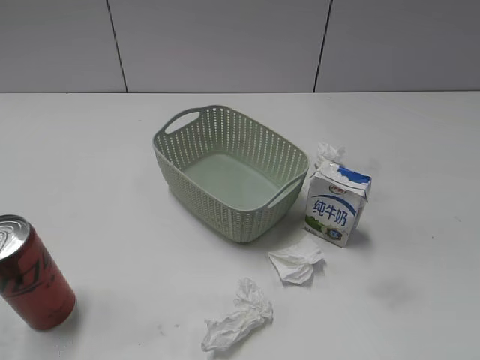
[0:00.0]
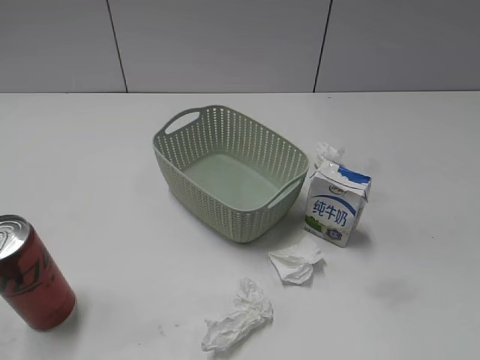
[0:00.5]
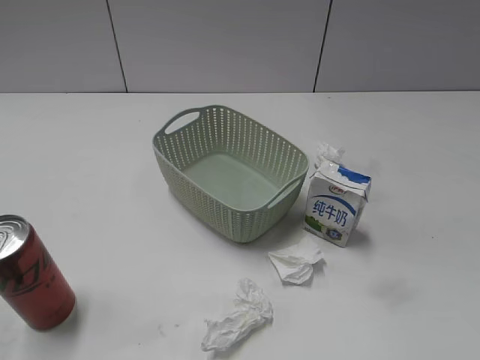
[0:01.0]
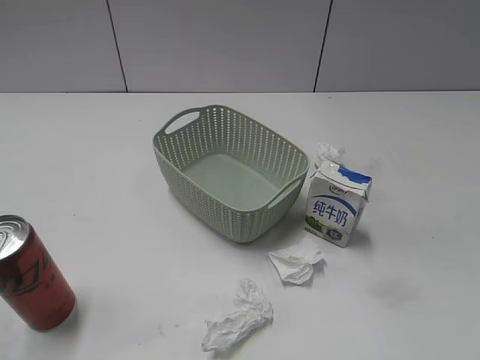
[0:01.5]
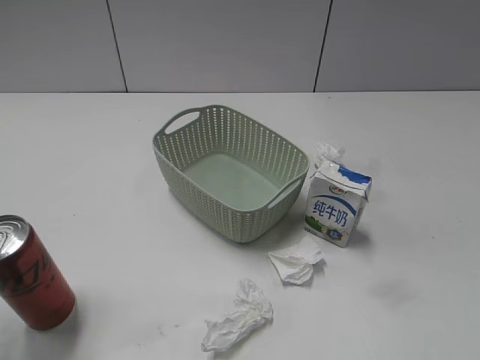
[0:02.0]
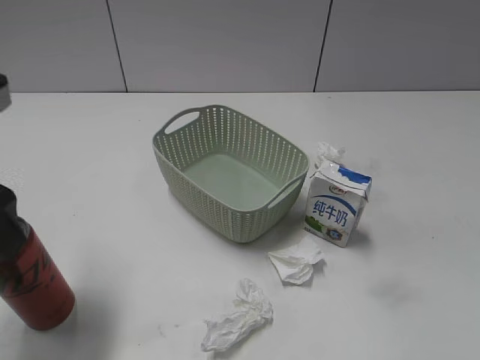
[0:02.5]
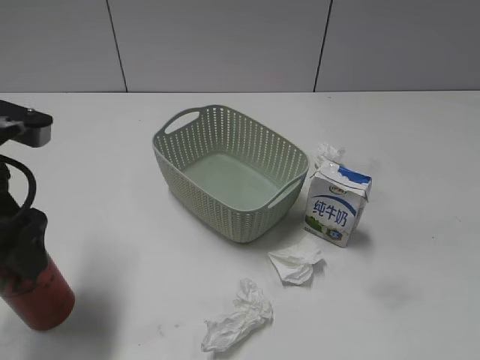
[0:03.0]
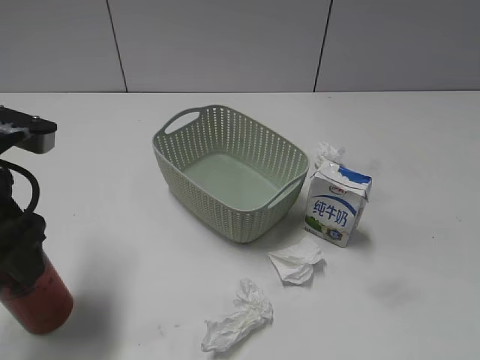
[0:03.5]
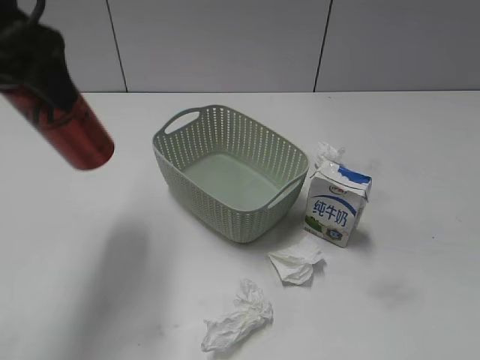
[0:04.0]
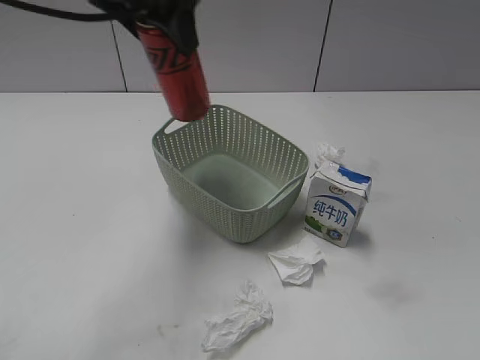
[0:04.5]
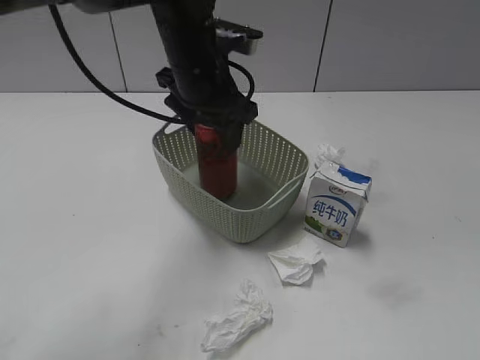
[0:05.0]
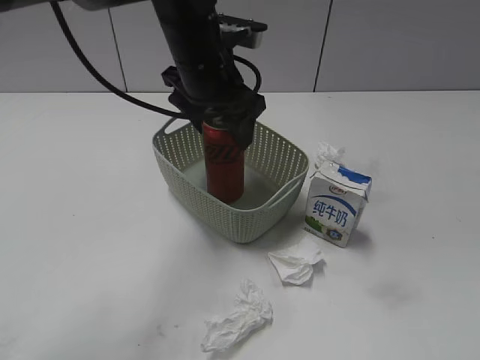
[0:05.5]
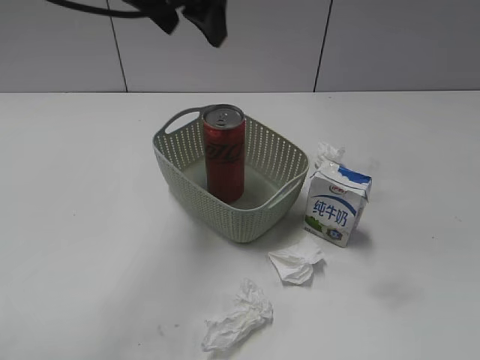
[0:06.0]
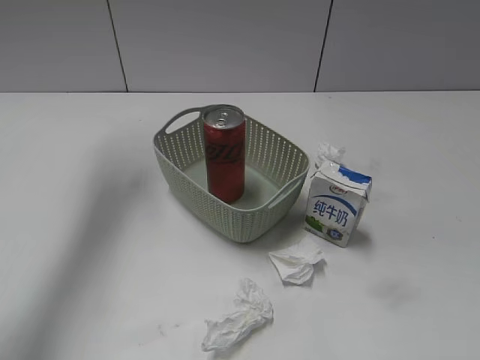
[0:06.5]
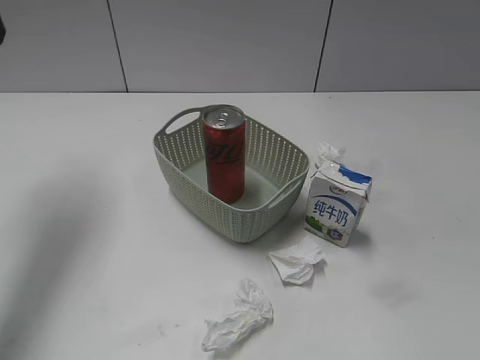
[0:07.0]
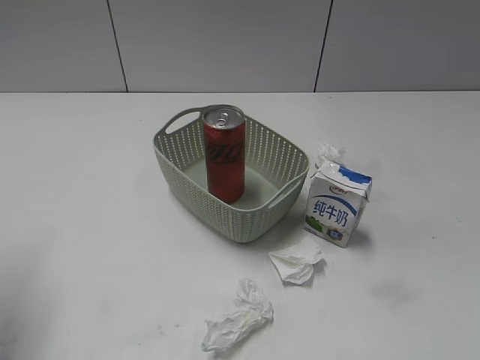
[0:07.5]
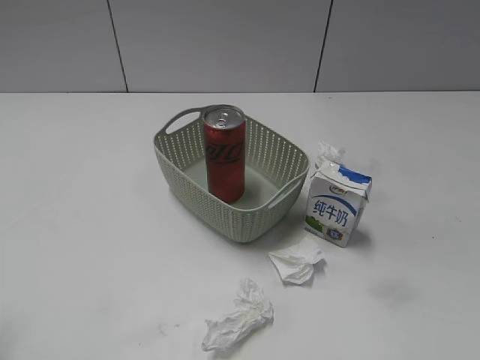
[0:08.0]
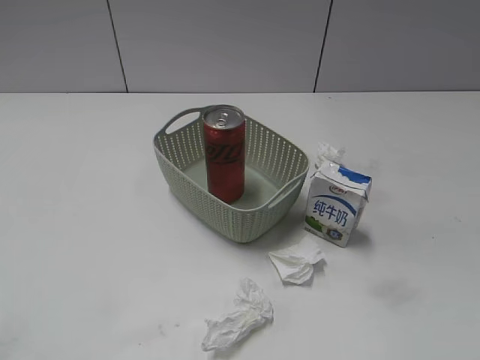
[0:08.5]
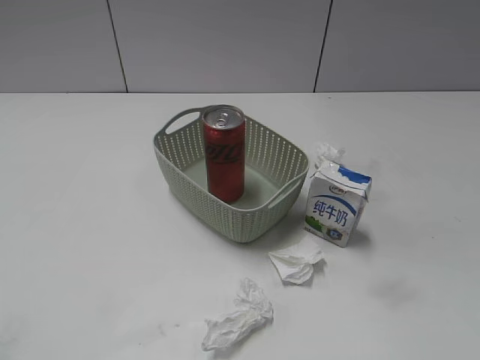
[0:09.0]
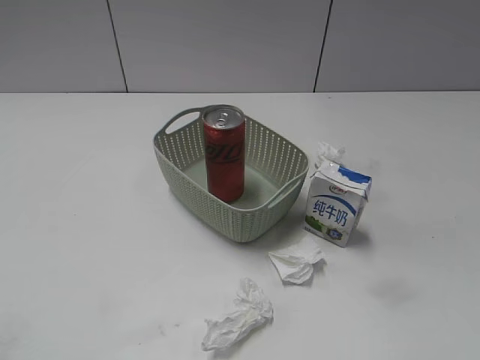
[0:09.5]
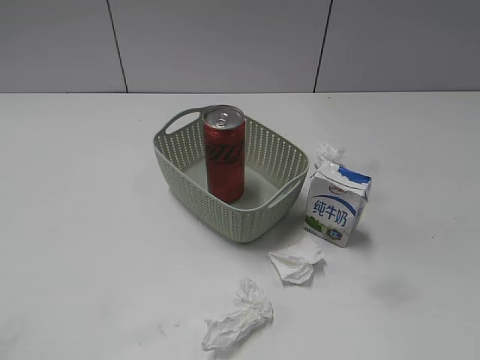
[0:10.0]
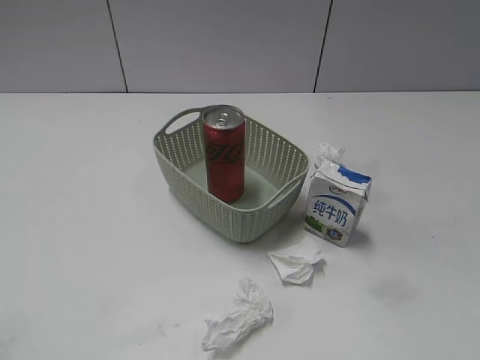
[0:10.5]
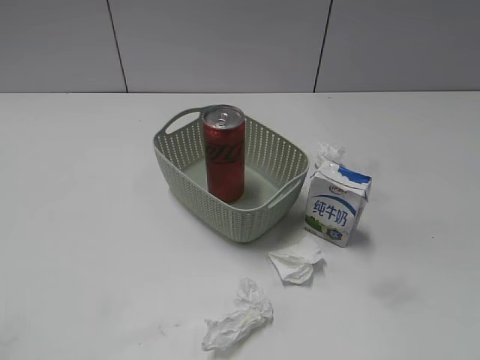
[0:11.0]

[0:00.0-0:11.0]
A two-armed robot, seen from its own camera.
Step, 0:02.5 to 0:03.0: Grasp the cola can with left gripper.
Step, 0:03.5 to 0:05.5: Place the cola can in the basket with left gripper.
0:02.0 to 0:03.5: The left gripper travels downward, forward and to the right by roughly 15 cm, and closes.
0:03.5 to 0:05.5: The left gripper heads to the right and forward, covering roughly 25 cm, and opens up.
0:05.5 to 0:07.5: The left gripper moves to the left and backward, about 30 cm, and closes.
0:07.5 to 0:09.0: The left gripper heads backward, covering about 20 cm.

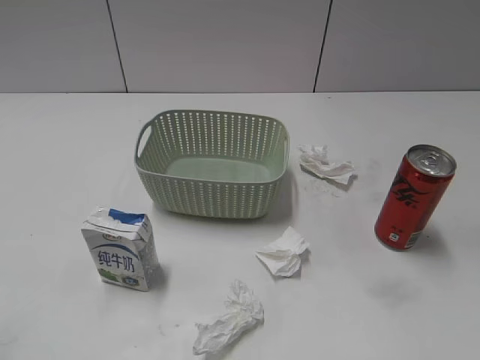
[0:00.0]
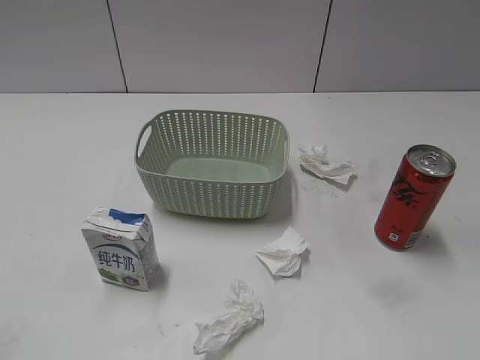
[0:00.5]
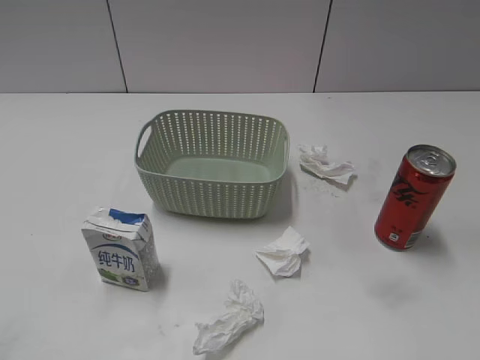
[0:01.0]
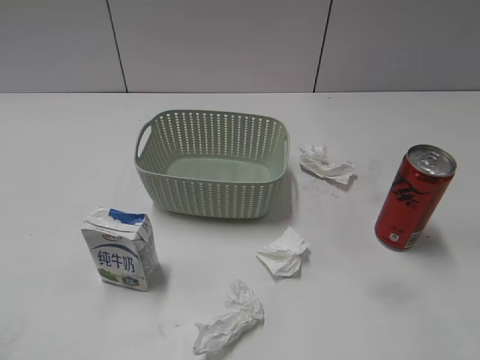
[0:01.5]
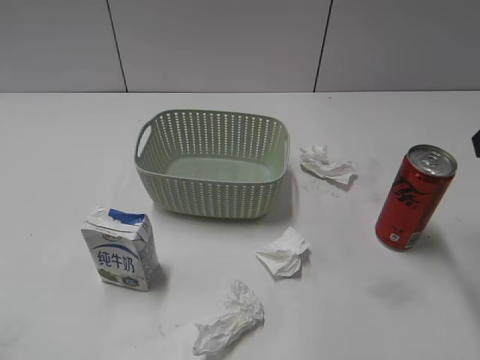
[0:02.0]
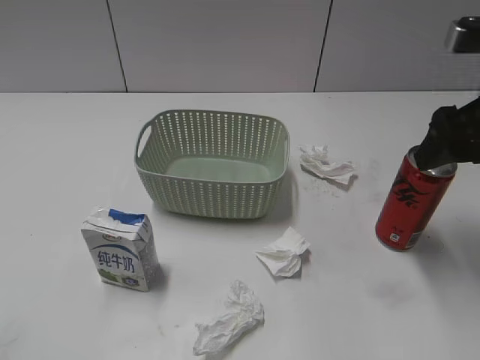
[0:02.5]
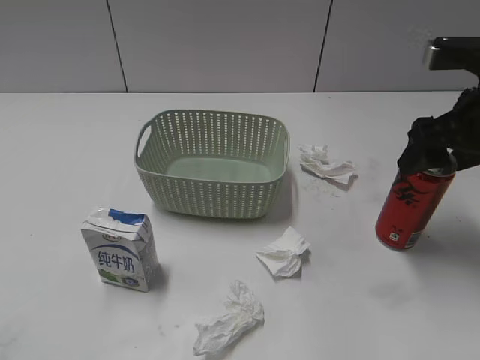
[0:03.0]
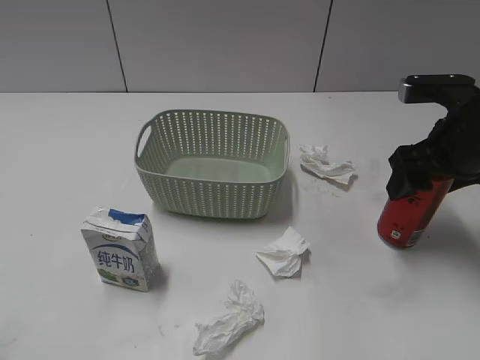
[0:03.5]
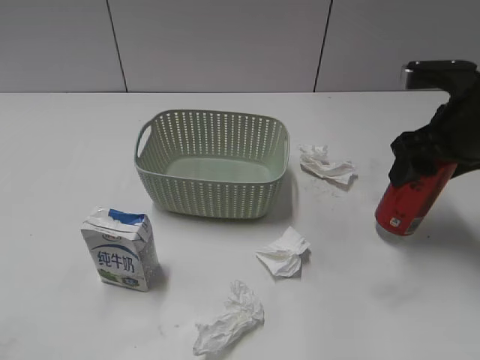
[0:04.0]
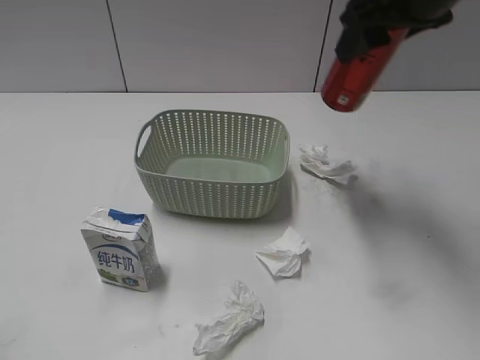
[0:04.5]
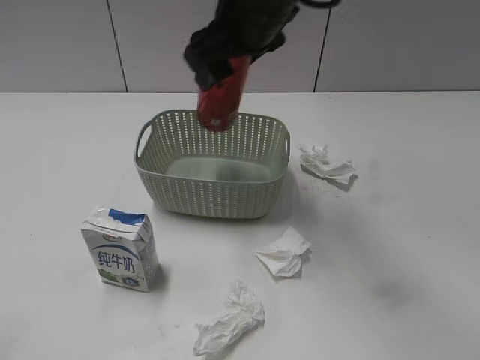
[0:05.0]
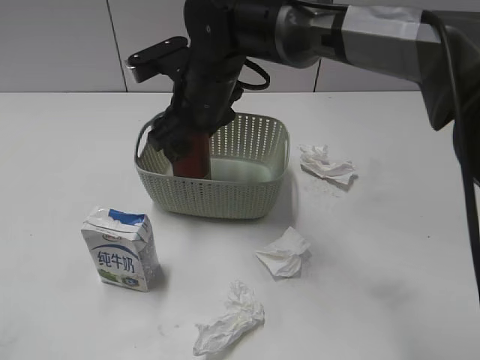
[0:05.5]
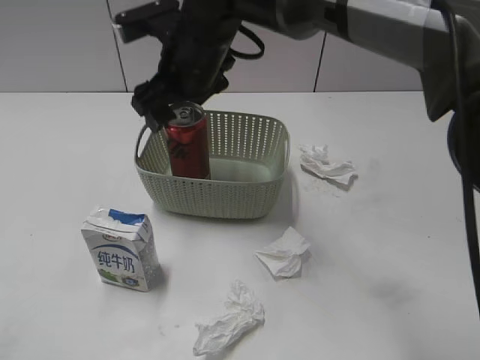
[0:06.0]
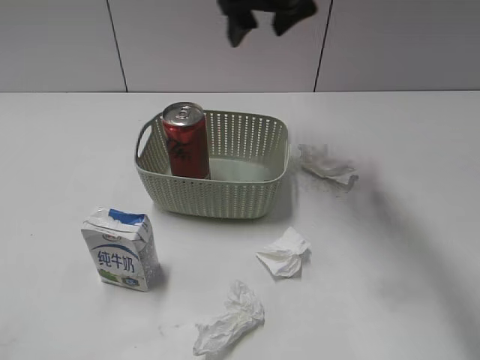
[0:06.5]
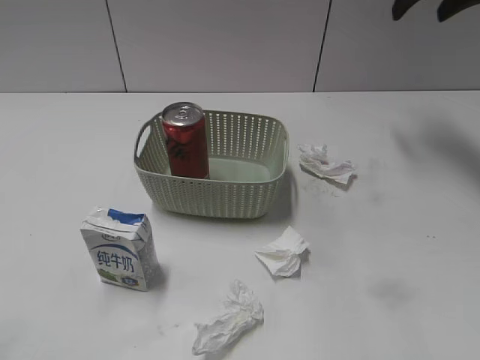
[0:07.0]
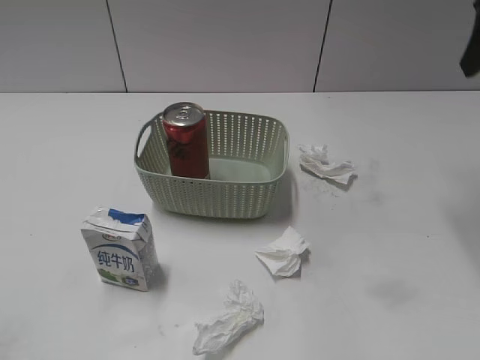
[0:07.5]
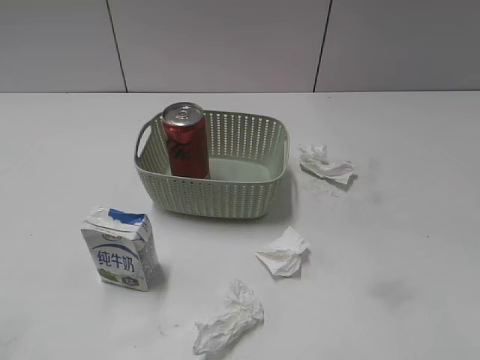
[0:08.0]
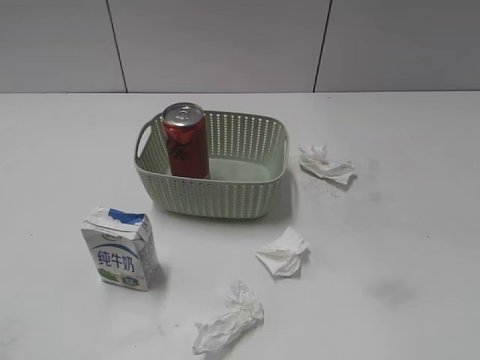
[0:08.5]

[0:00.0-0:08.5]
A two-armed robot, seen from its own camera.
Step, 0:02.0 to 0:03.5: Grasp the cola can with right gripper.
Step, 0:04.0 to 0:06.0: Place the cola can in the basket with right gripper.
0:02.0 to 0:04.0: The right gripper shifts some 15 cm downward and forward, and closes its fingers.
0:04.0 to 0:06.5: The right gripper moves to the left, forward and upward, some 25 cm, and opens.
0:06.5 to 0:08.5: The right gripper goes approximately 50 cm backward and to the right, and closes.

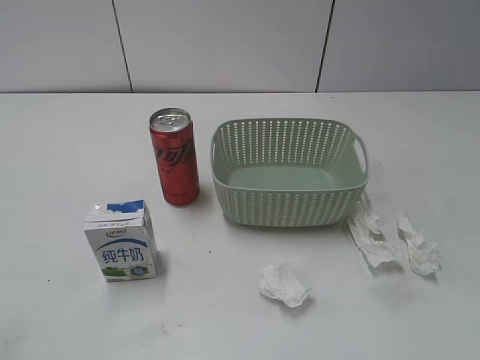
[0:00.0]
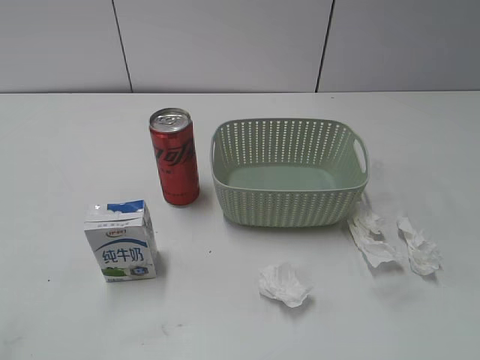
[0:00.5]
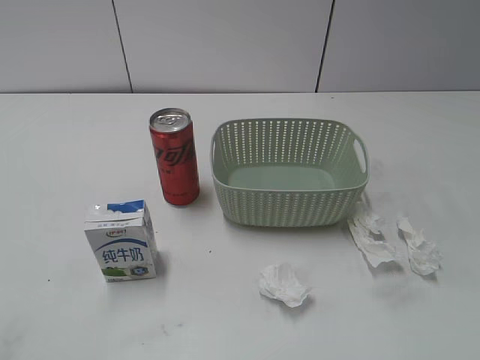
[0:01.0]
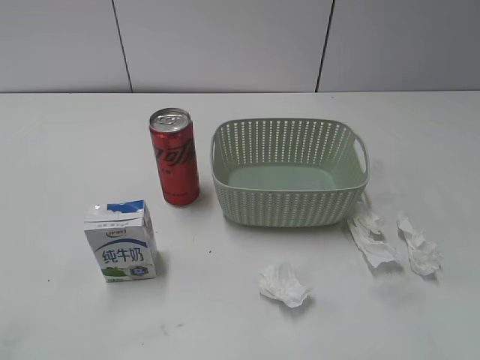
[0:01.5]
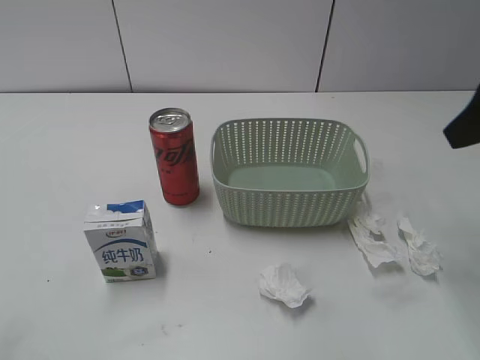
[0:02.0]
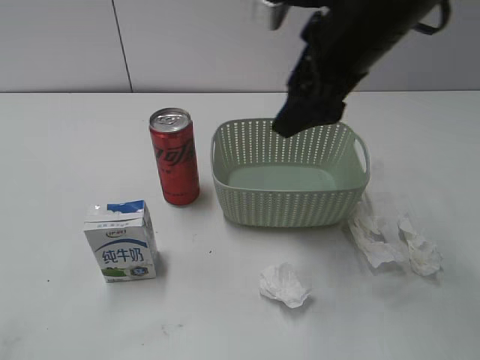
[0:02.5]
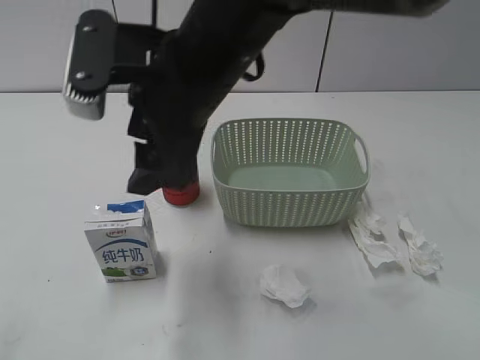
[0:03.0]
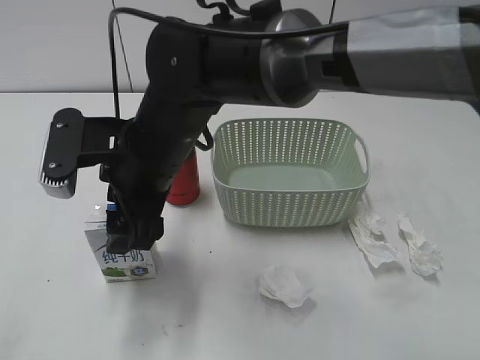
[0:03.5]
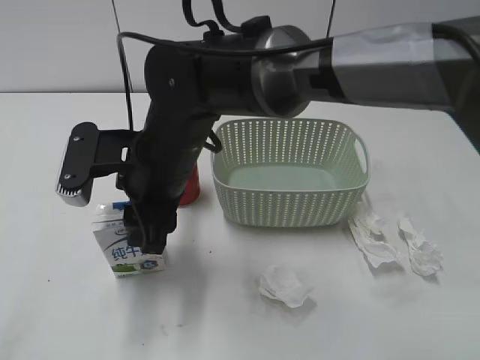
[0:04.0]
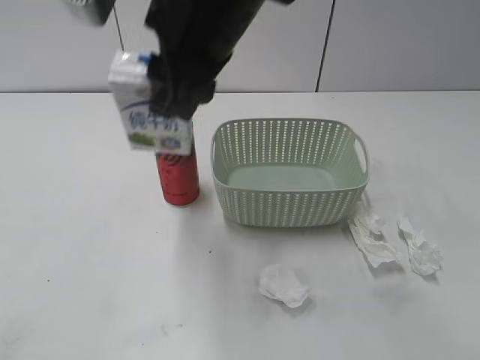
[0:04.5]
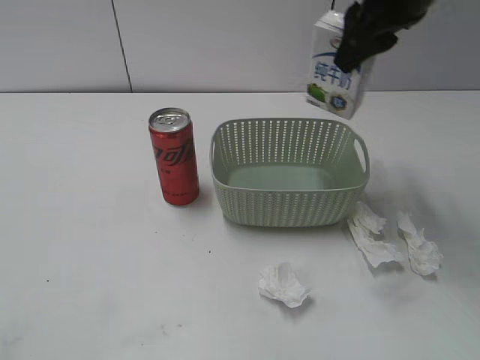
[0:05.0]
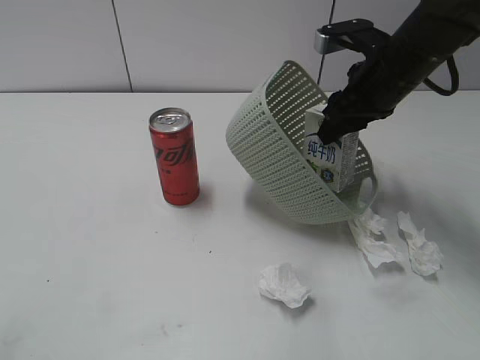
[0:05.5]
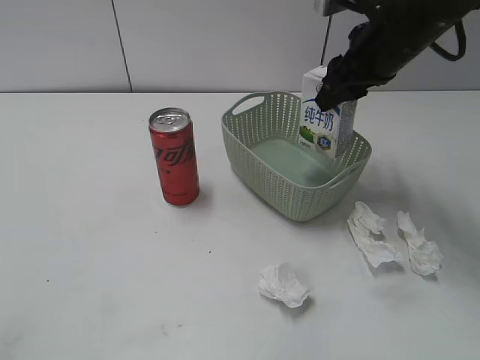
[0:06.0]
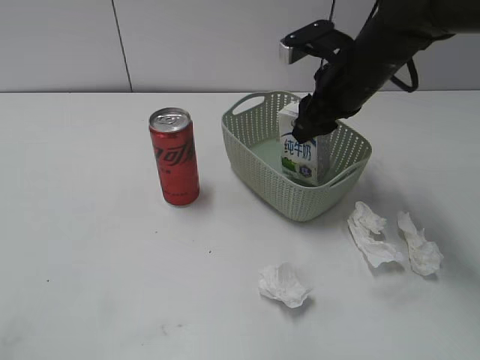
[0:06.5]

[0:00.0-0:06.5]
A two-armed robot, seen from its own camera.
Step, 0:02.0 to 0:03.5: Grasp the milk with right gripper.
0:02.0 to 0:04.5: The right gripper shifts roughly 30 cm to the left, and closes up.
0:04.5 to 0:06.5: The right gripper heads to the right, forward and downward, covering about 25 cm.
